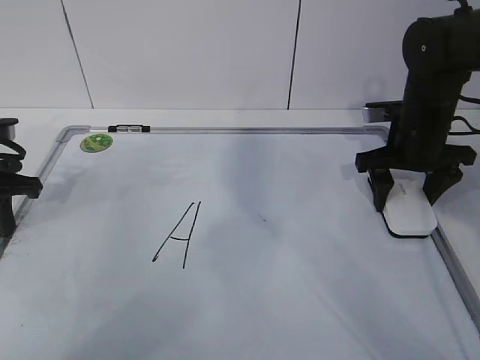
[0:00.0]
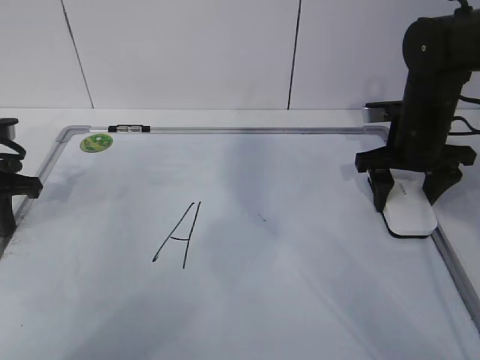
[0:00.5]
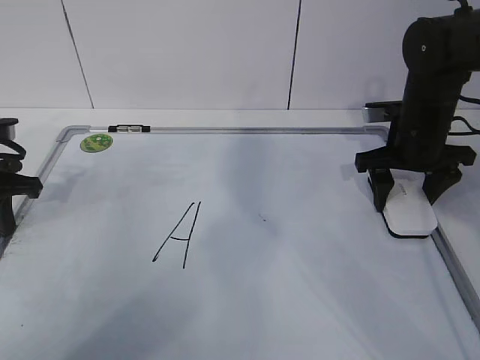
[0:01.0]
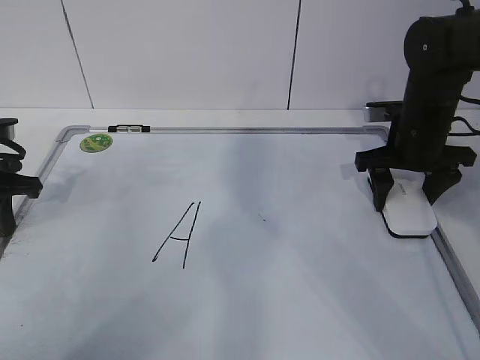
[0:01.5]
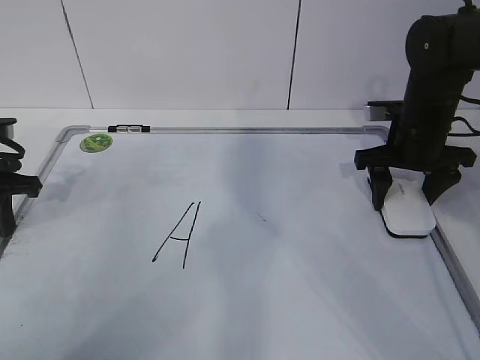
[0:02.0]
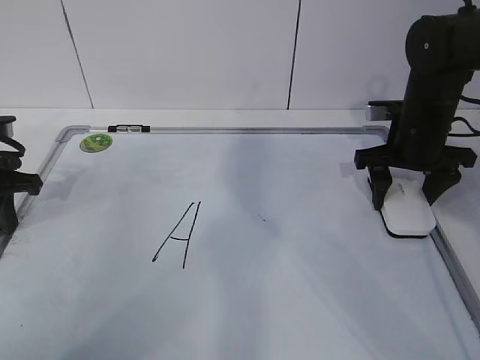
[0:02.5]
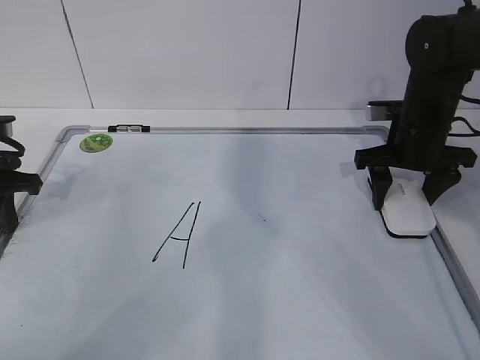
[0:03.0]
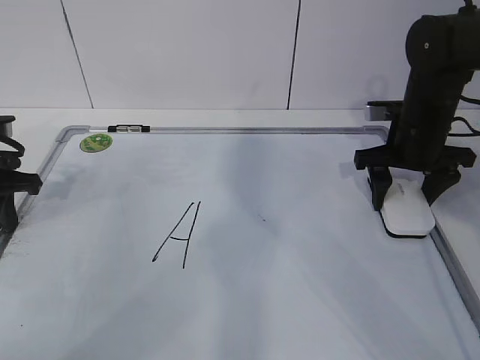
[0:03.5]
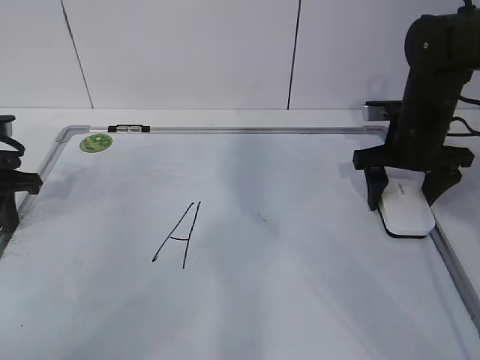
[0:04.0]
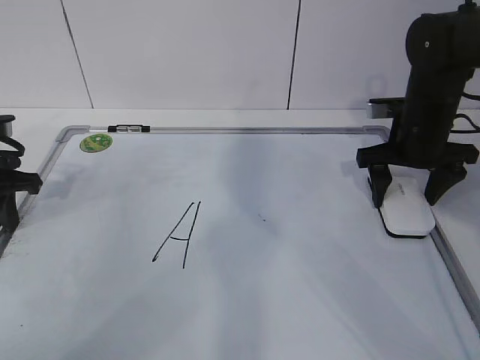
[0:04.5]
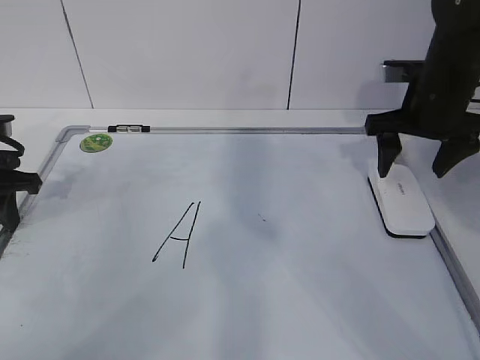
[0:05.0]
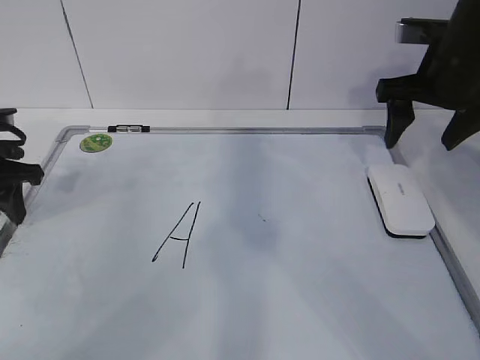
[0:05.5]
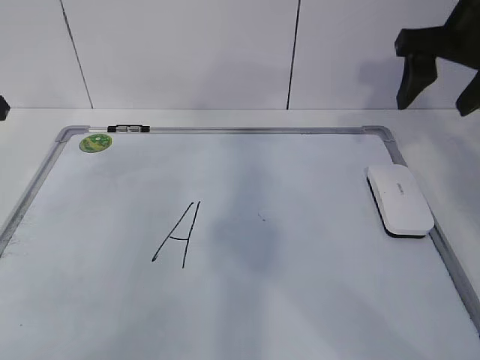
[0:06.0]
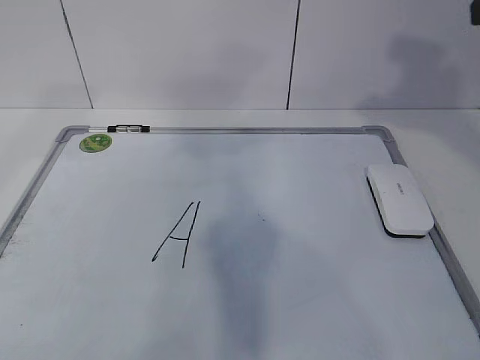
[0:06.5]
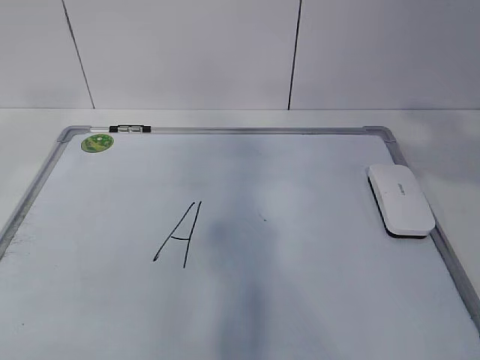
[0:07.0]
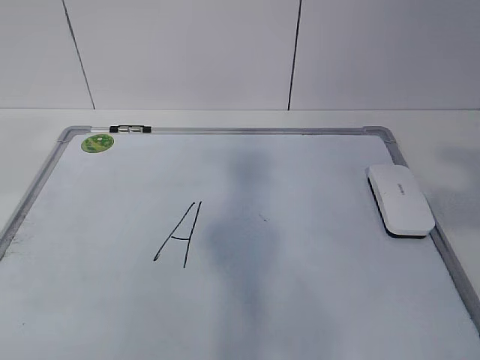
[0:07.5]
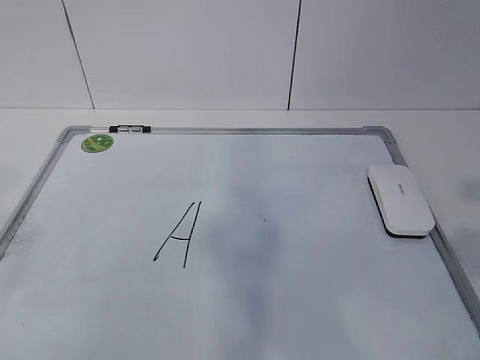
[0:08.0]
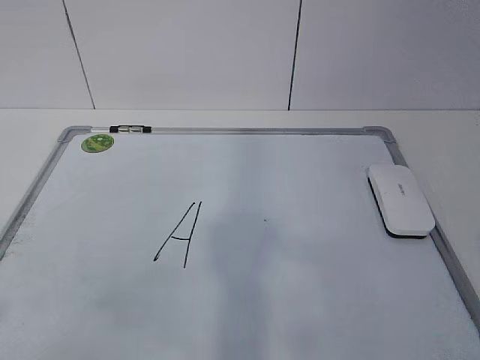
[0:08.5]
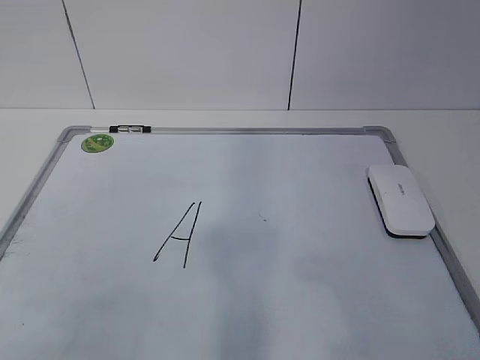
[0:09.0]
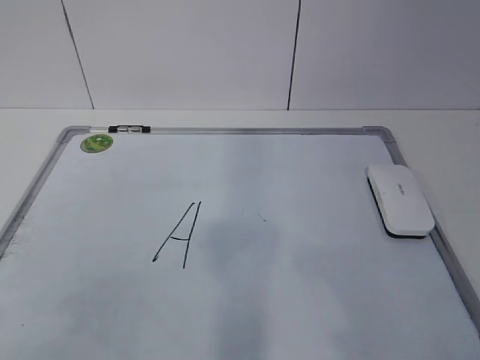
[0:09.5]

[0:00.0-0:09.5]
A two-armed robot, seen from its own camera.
Task of the whole recording: pick up the eraser on the blackboard and erase the letter "a".
0:00.0 to 0:02.0: Both grippers stay put.
0:02.0 to 0:04.0: The right gripper opens.
0:04.0 to 0:05.5: The left gripper opens its fingers. Meanwhile the right gripper heads upward, covering some 10 cm.
0:05.5 to 0:07.5: The left gripper heads upward and backward, covering about 40 cm. Meanwhile the right gripper shifts roughly 30 cm backward, and closes up.
0:07.5 to 0:09.5: Both grippers move downward and backward, some 15 cm.

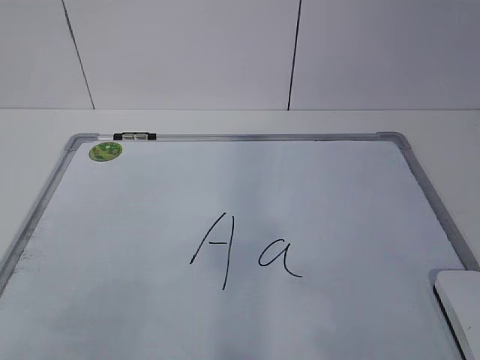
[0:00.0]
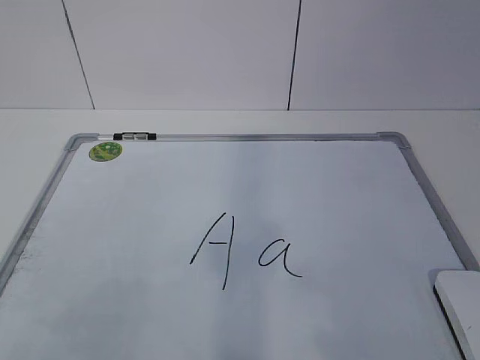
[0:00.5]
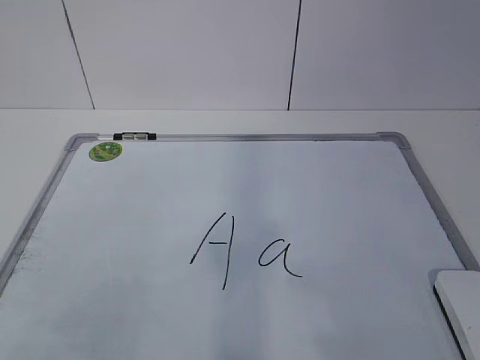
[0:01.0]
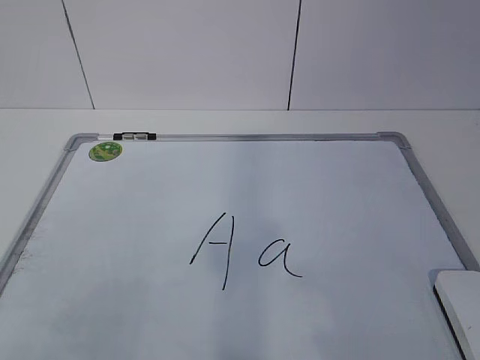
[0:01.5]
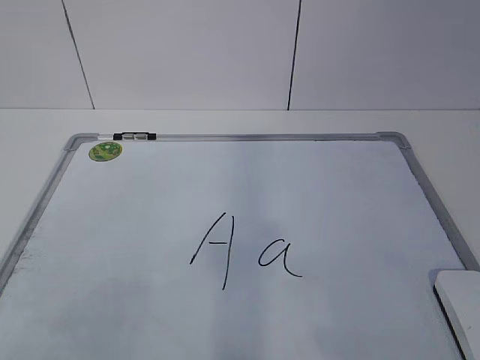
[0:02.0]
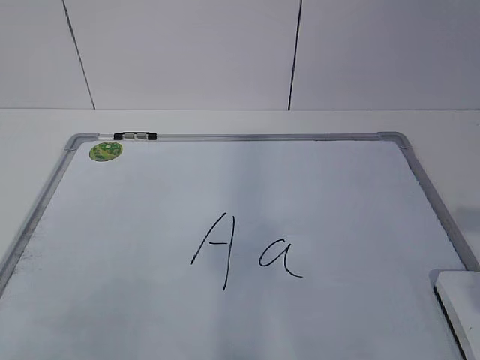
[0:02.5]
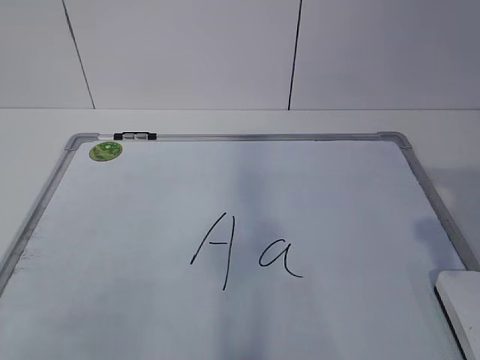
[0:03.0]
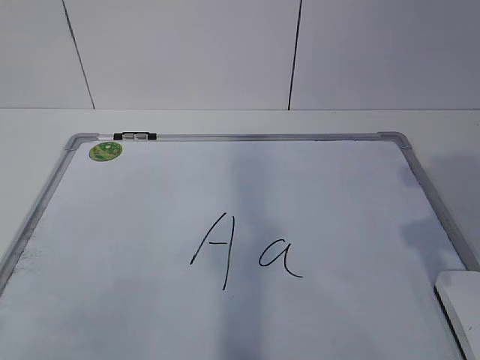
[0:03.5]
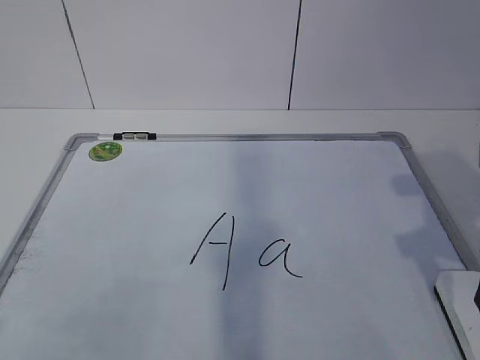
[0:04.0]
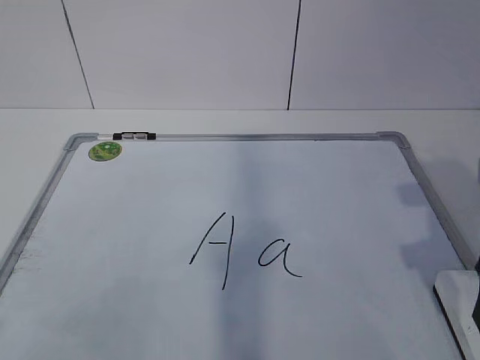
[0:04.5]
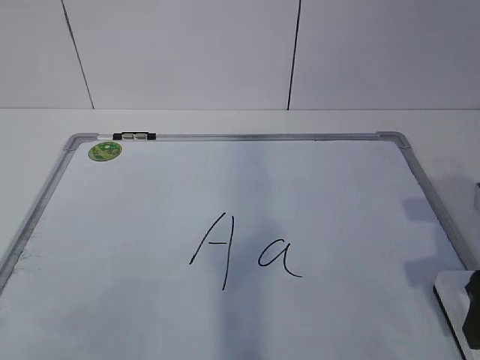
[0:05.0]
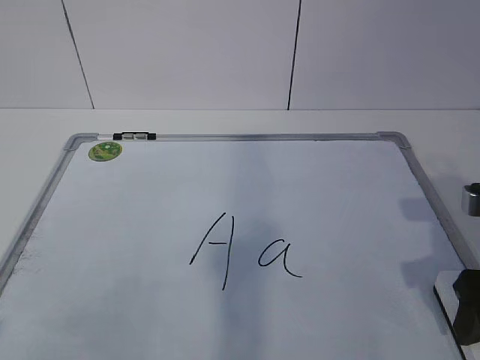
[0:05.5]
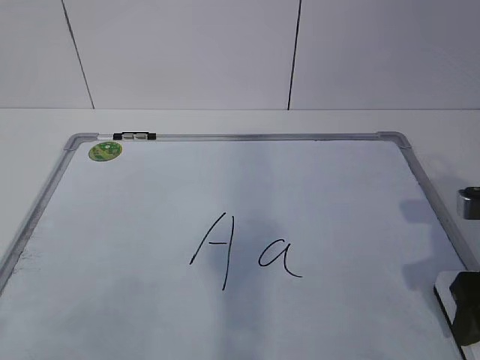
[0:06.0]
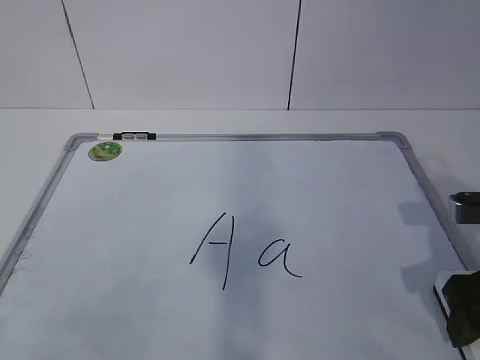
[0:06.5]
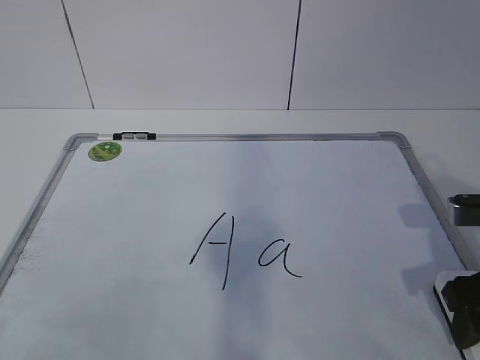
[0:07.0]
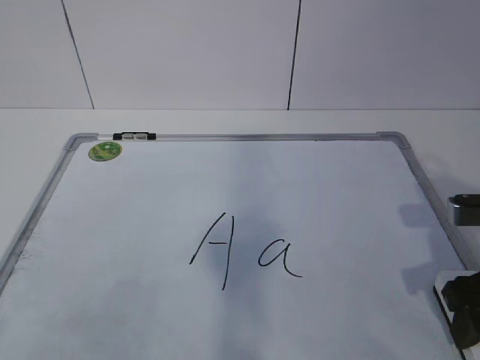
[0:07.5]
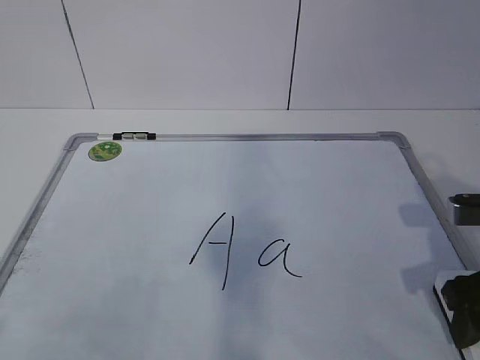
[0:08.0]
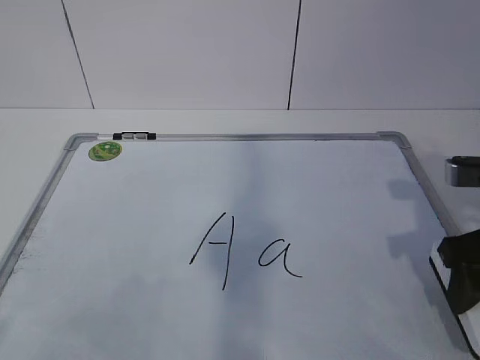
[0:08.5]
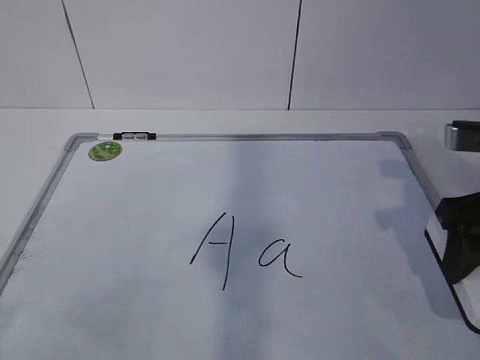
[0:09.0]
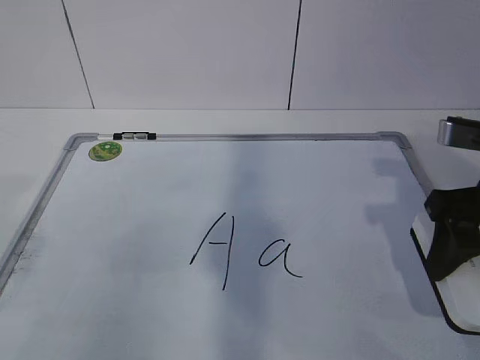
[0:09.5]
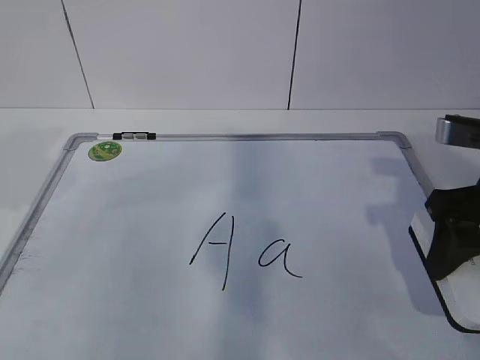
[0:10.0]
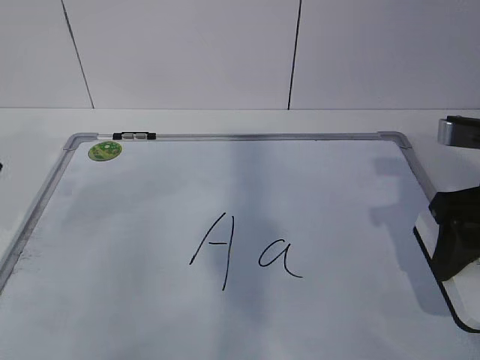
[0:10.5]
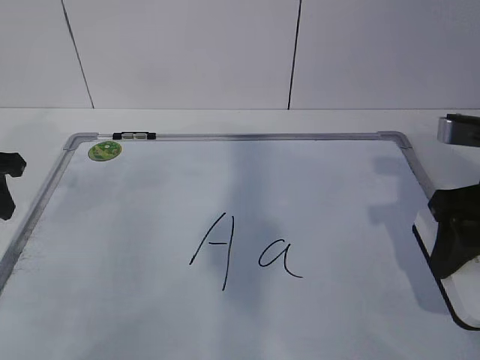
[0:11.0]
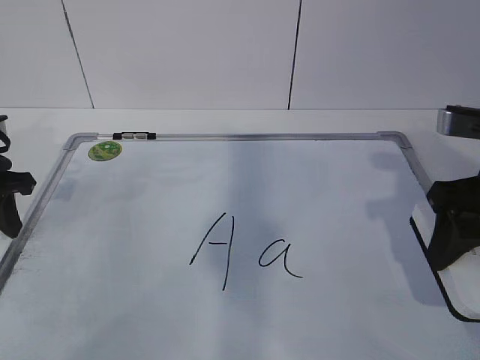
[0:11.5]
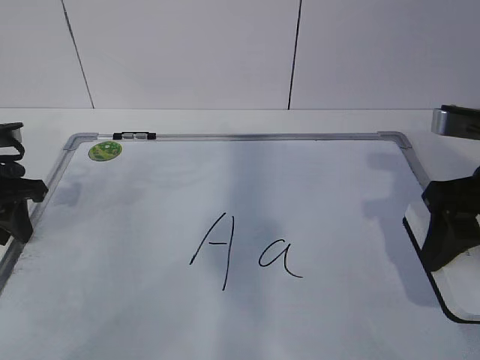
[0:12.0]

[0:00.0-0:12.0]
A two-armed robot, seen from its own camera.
Task of the whole recording: pick up the eraser on the blackboard and erase the letter "a".
Step, 0:07.0 to 0:10.5: Hold the drawing board steady with your left hand.
0:02.0 to 0:04.0: The right gripper is displaced forward by some 20 cm, and opens up.
0:04.0 to 0:06.0: The right gripper goes about 5 cm downward.
0:06.0 to 0:08.0: The right gripper closes up.
0:08.0 to 0:10.0: The right gripper moves upward, about 5 cm.
0:10.0 to 0:12.0: The left gripper heads downward and forward, covering some 15 cm.

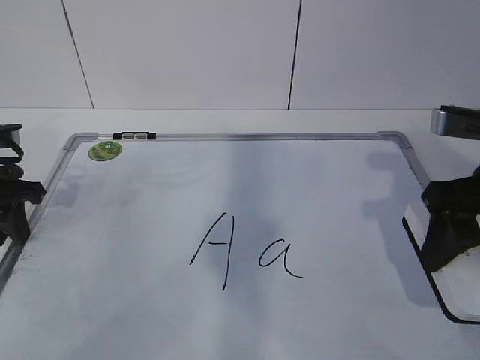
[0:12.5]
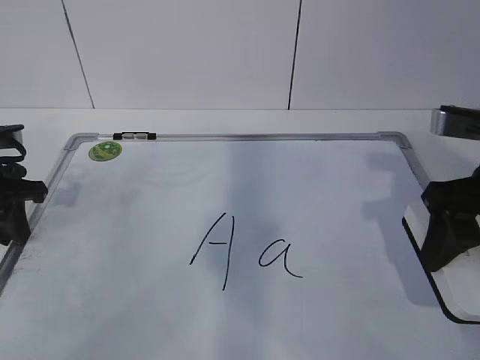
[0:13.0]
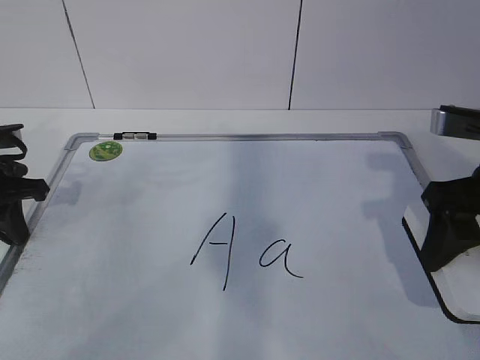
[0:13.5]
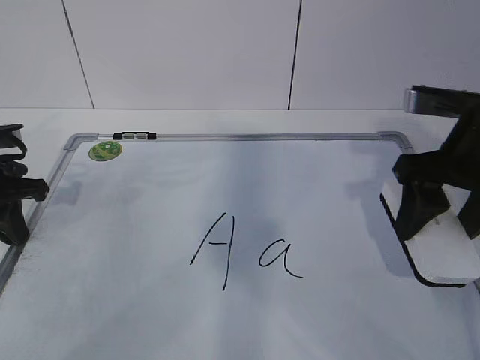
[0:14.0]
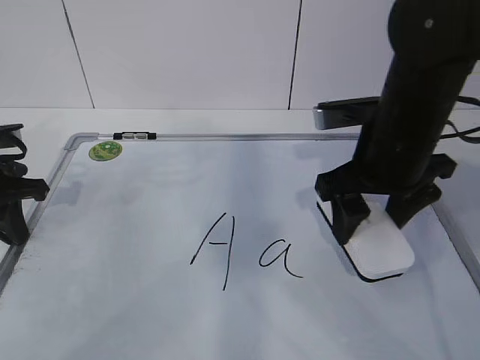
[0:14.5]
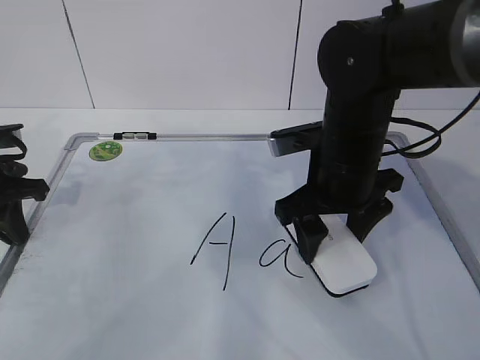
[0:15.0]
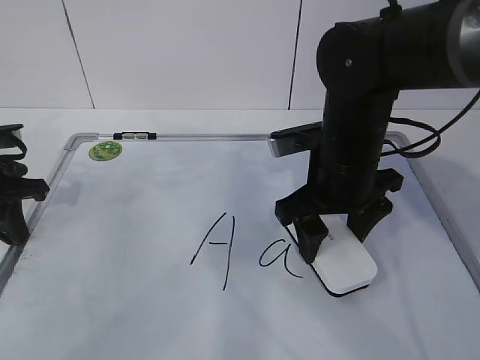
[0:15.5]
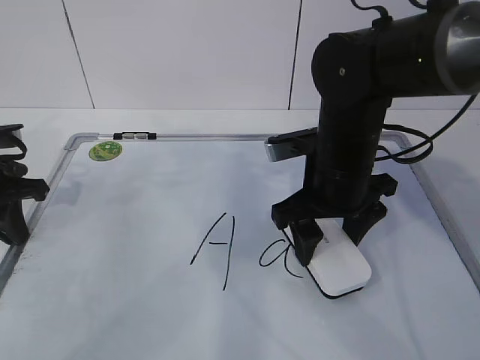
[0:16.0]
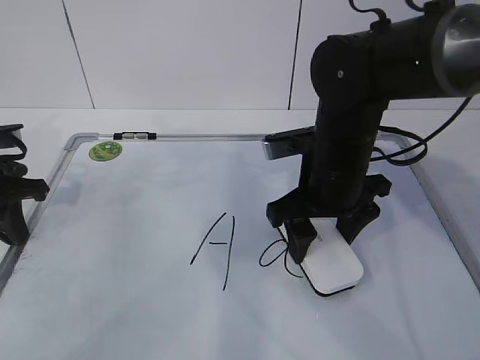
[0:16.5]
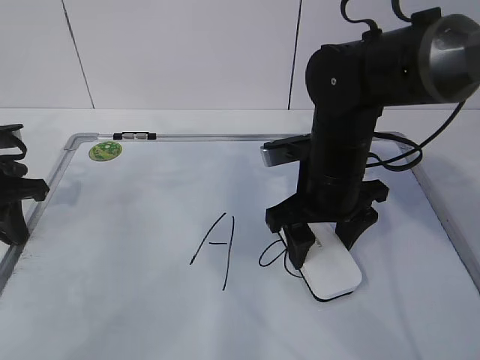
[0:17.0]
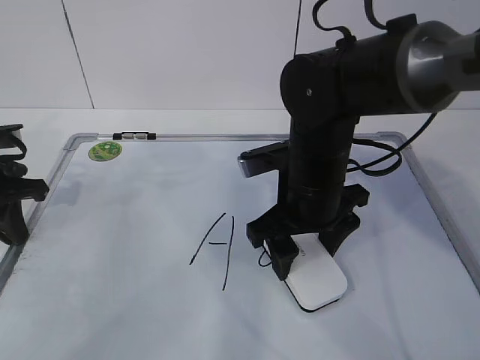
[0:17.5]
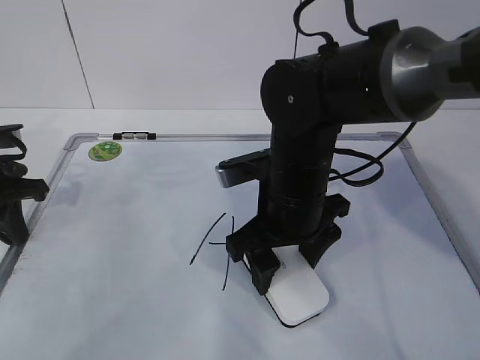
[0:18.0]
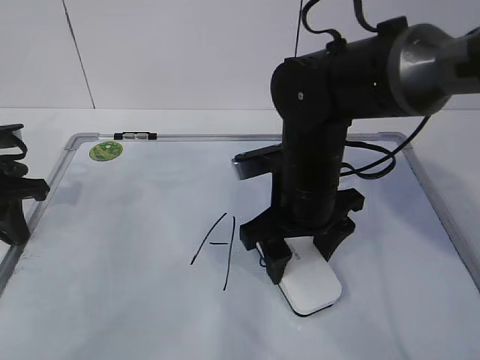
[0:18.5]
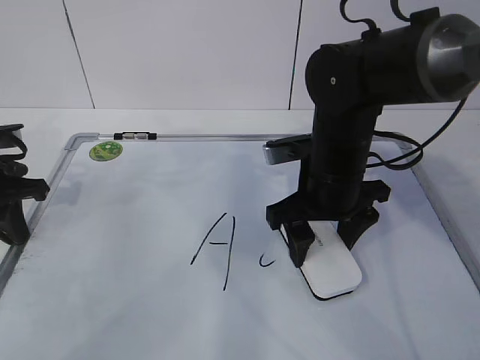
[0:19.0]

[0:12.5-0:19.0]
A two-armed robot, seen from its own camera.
Task of the whole recording: pick up the eraser on the blackboard and erase the letter "a".
Step, 0:12.5 to 0:17.5: Erase the letter a with your right hand.
0:12.5 to 0:14.5: The right gripper heads to the left and forward, covering approximately 10 cm. The left gripper closes.
0:14.5 to 0:17.0: The right gripper travels downward and to the left by roughly 10 cm.
0:17.0 to 0:19.0: The grippers stay close to where they were, moving slightly.
